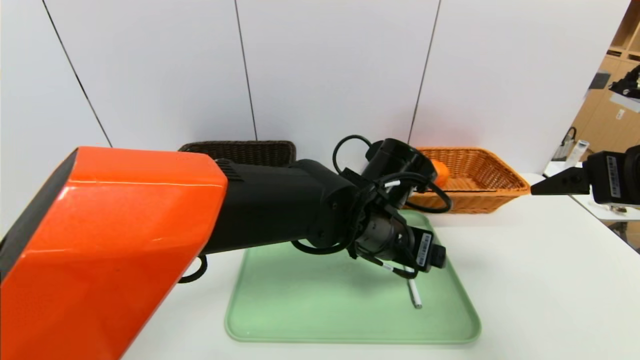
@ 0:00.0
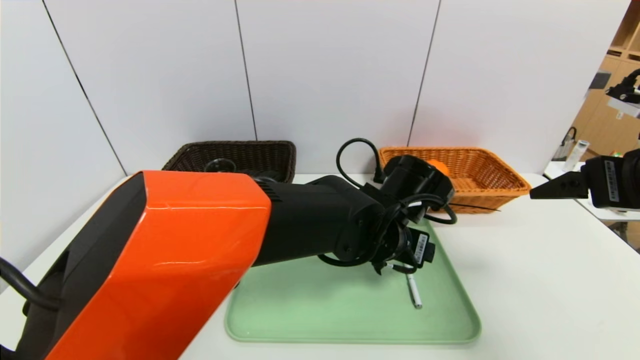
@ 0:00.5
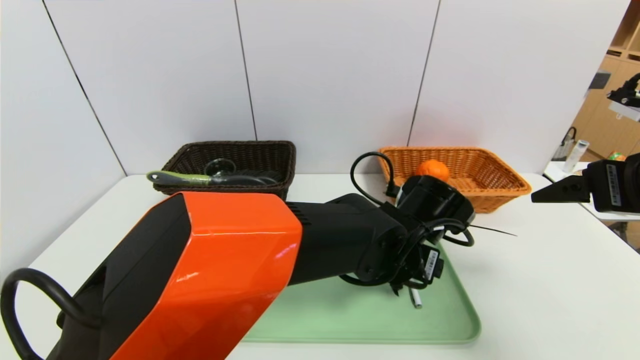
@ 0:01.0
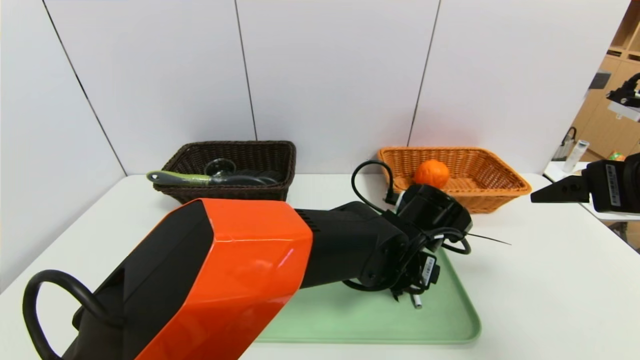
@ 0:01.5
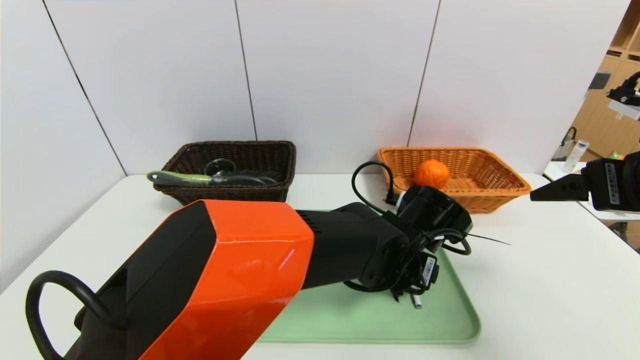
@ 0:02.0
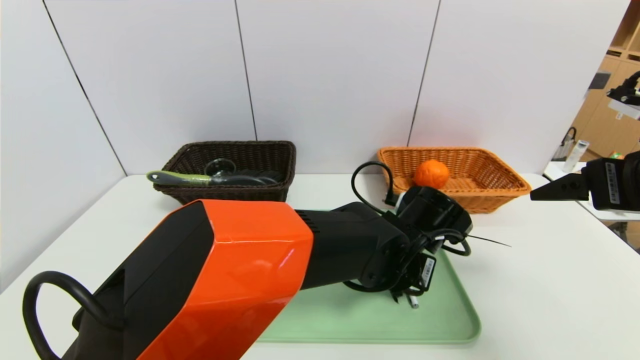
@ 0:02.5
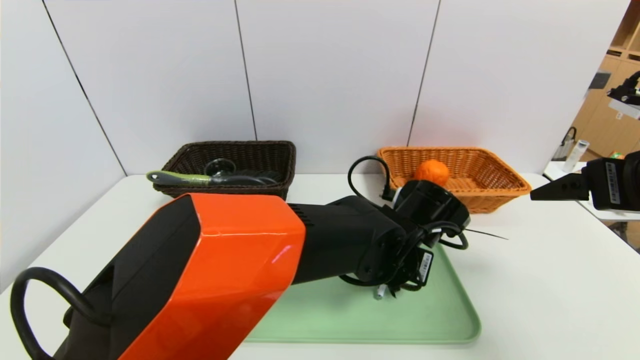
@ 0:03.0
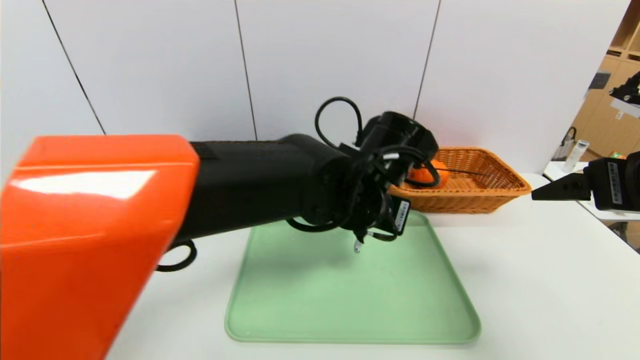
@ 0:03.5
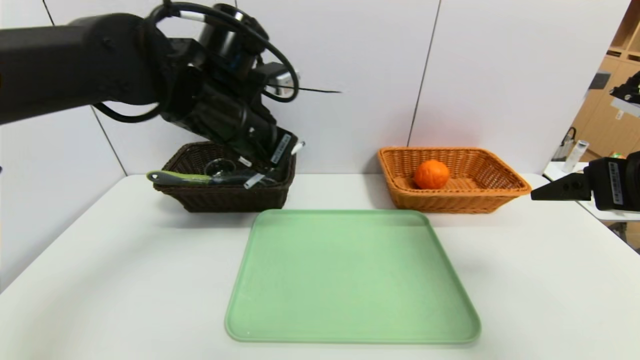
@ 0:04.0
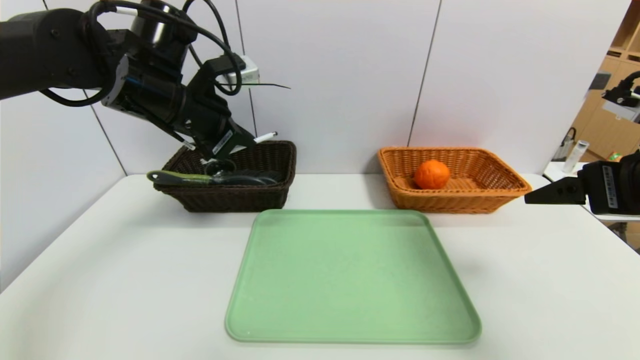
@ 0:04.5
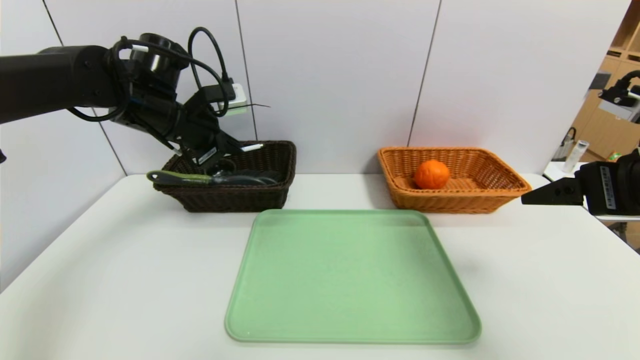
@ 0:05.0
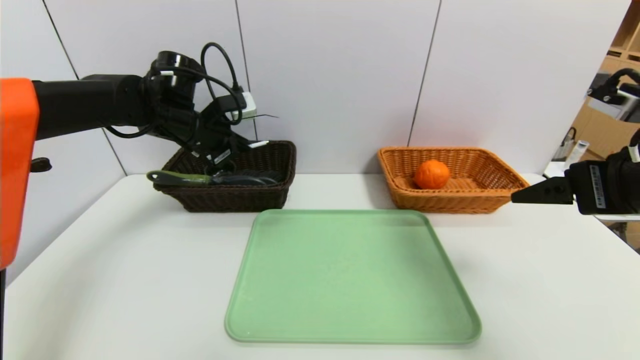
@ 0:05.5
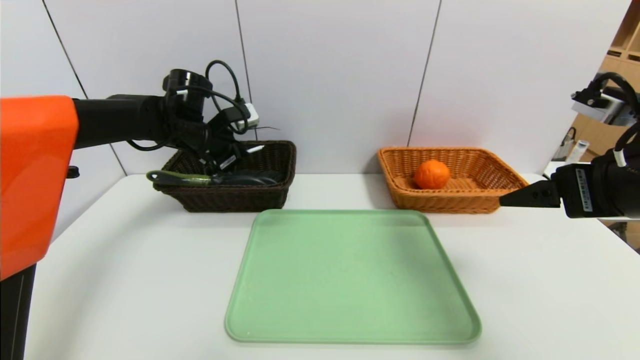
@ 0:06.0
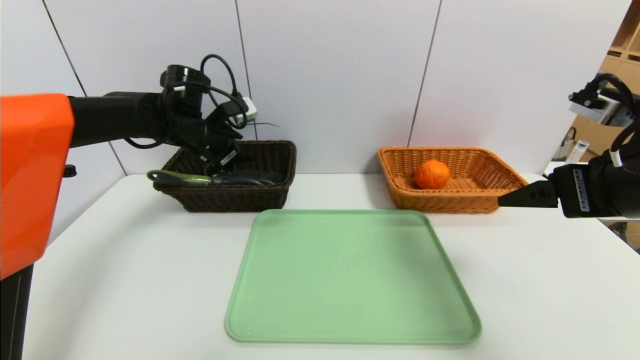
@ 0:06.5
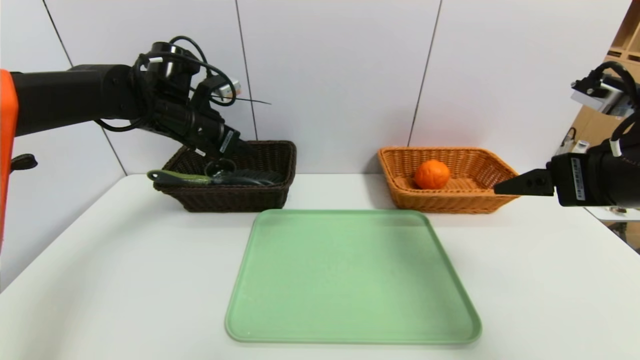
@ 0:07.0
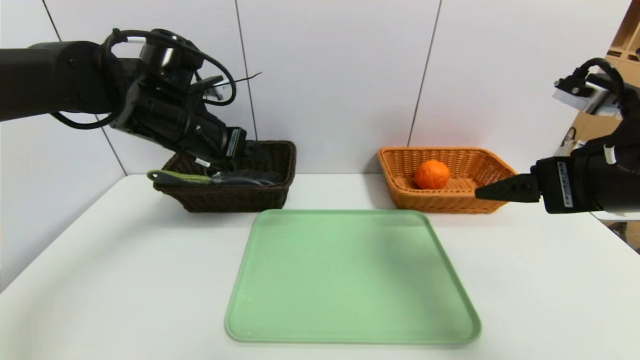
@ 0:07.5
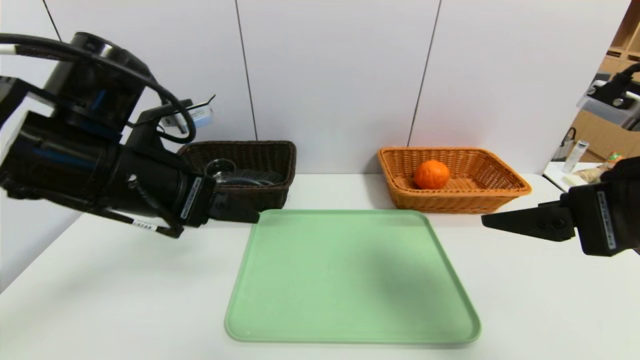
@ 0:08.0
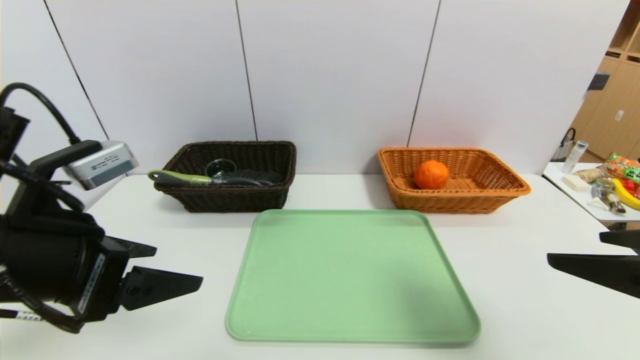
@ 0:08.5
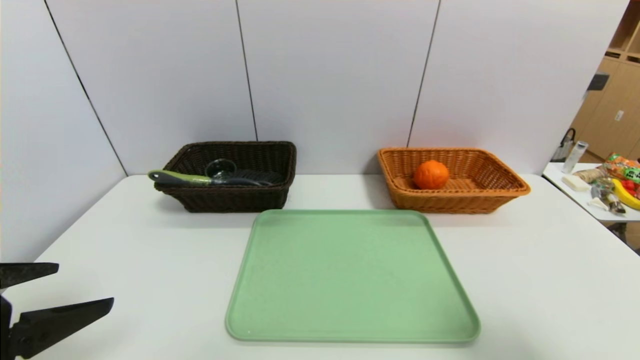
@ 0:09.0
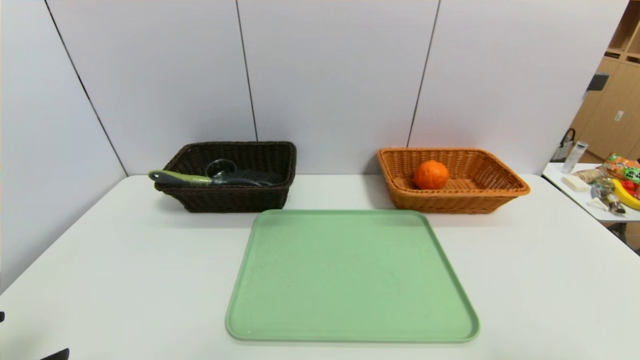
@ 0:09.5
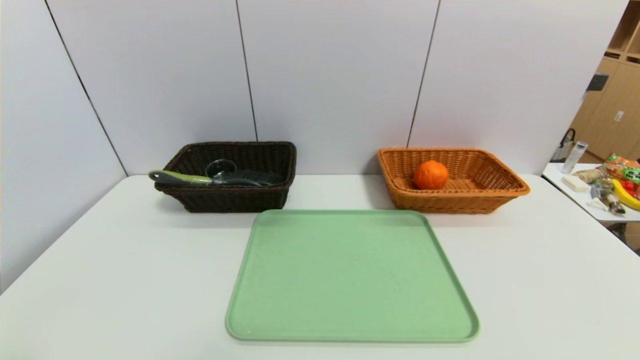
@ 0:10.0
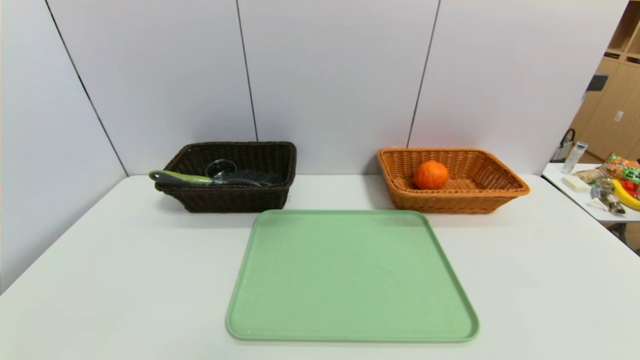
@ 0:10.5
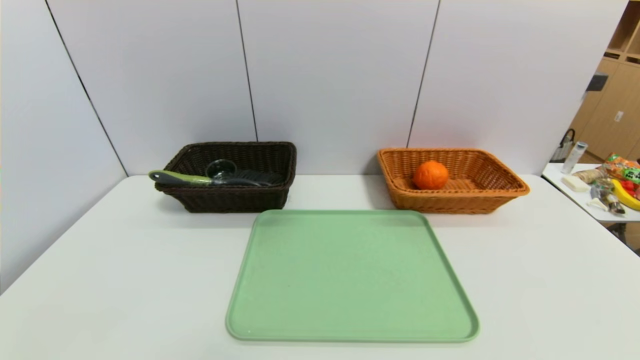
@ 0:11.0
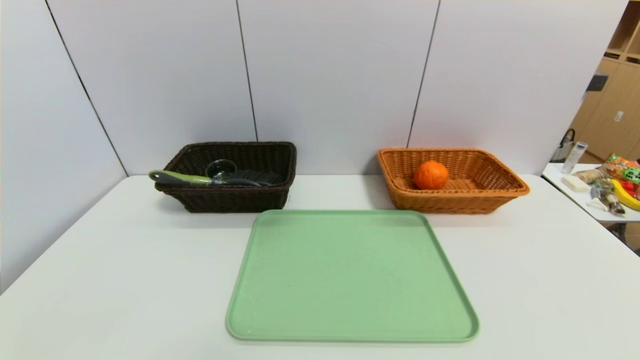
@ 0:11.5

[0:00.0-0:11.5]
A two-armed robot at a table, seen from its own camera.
Task of the whole recording: place the food in the right basket with the right gripper, and place the non food items in the left basket with the left gripper.
Step, 0:00.0 to 0:06.5: Grasp the pen container and put it in the left basket.
0:00.0 to 0:02.0: The left gripper travels downward by approximately 5 cm.
0:02.0 to 0:04.0: The left gripper heads to the left and upward, covering approximately 30 cm, and closes.
0:04.0 to 0:06.0: The left gripper goes some 20 cm forward, to the left and downward.
0:06.0 to 0:07.5: The left gripper heads backward and upward, covering some 10 cm, and opens up.
0:07.5 to 0:09.5: The left gripper heads backward, covering about 30 cm, while the right gripper moves backward and to the right, some 20 cm.
